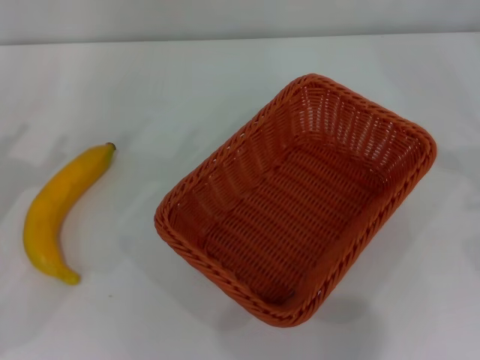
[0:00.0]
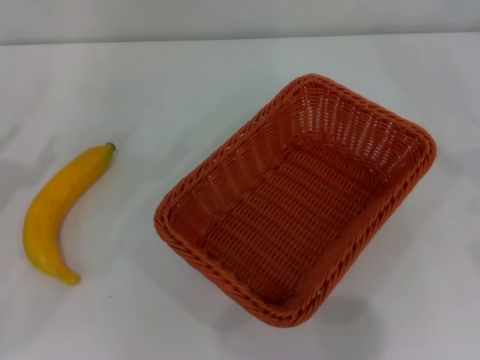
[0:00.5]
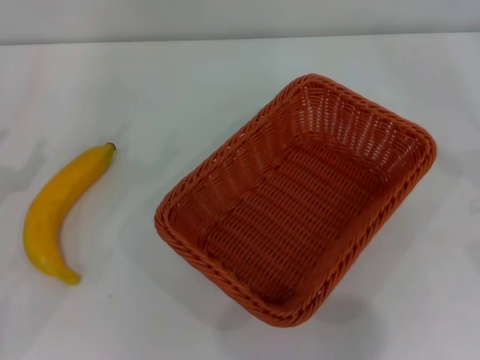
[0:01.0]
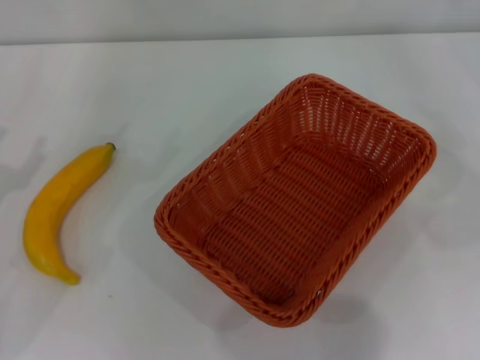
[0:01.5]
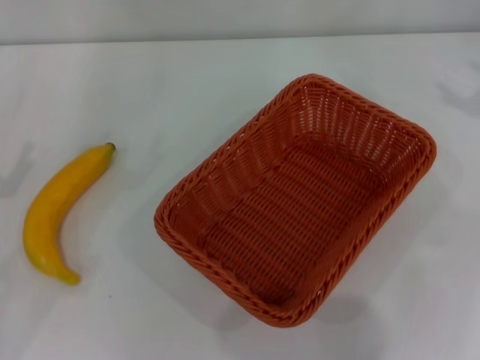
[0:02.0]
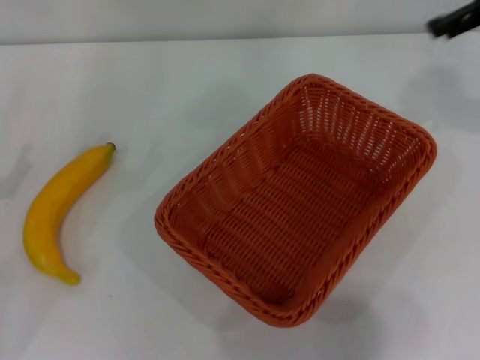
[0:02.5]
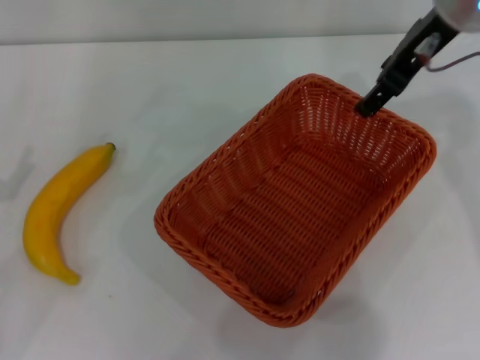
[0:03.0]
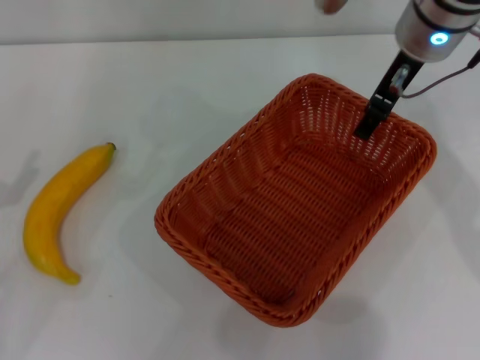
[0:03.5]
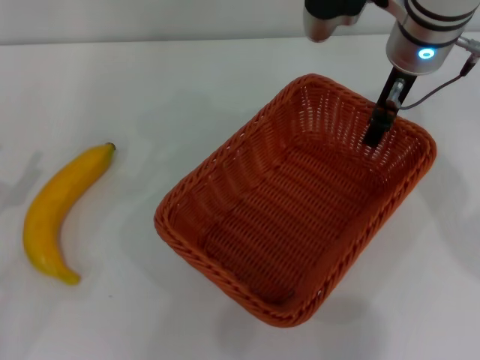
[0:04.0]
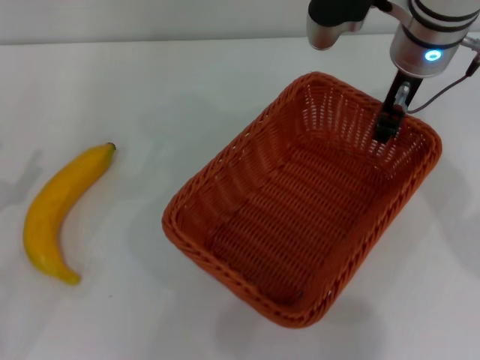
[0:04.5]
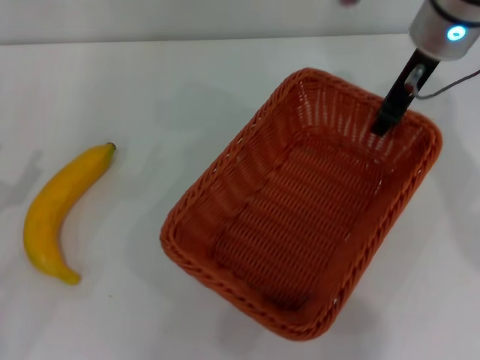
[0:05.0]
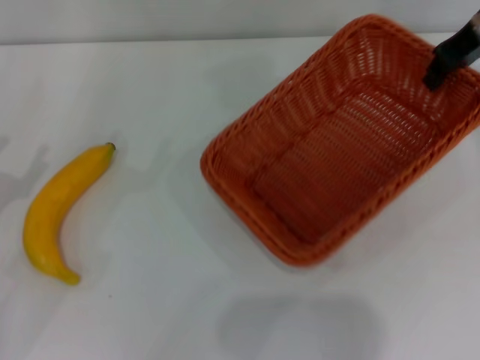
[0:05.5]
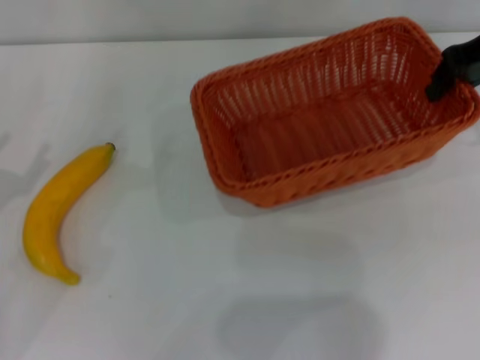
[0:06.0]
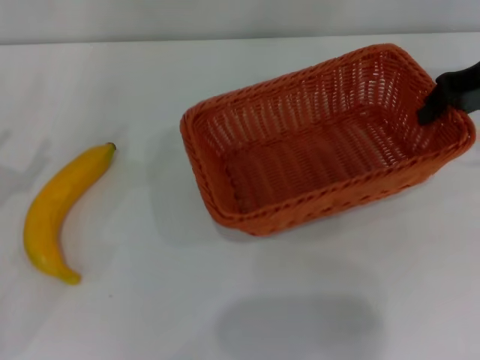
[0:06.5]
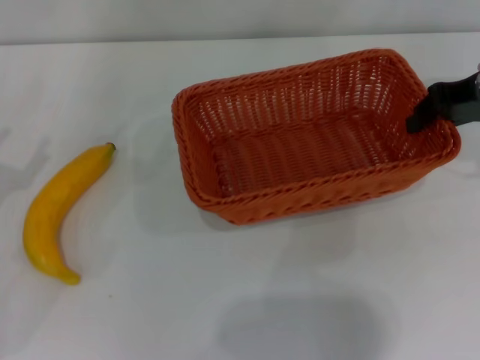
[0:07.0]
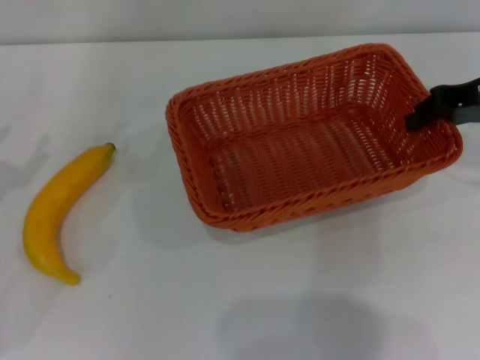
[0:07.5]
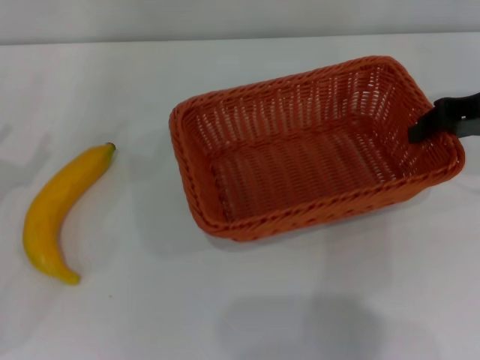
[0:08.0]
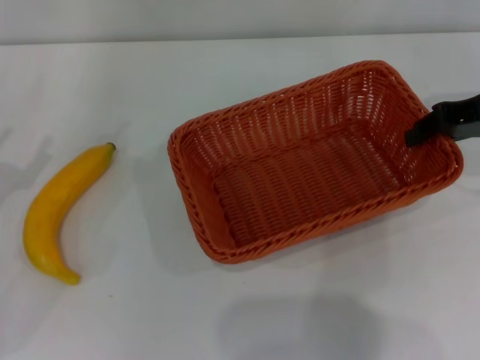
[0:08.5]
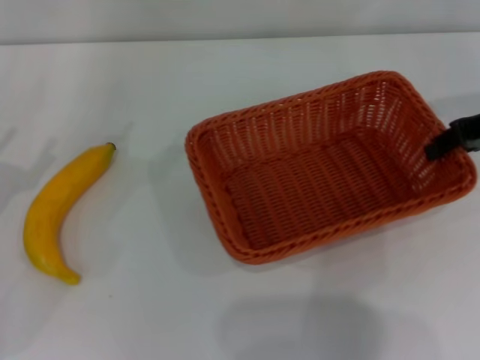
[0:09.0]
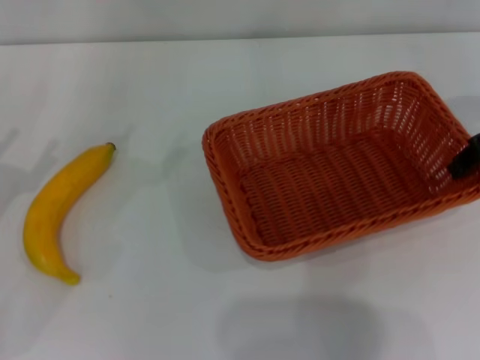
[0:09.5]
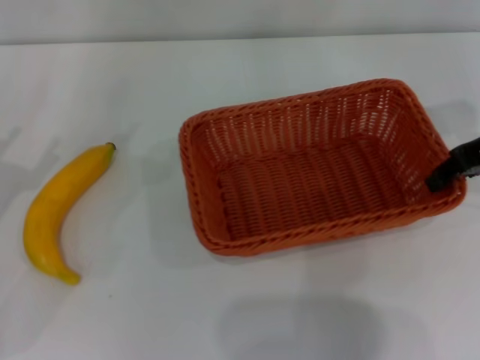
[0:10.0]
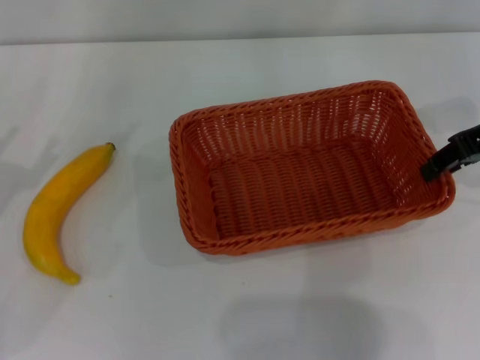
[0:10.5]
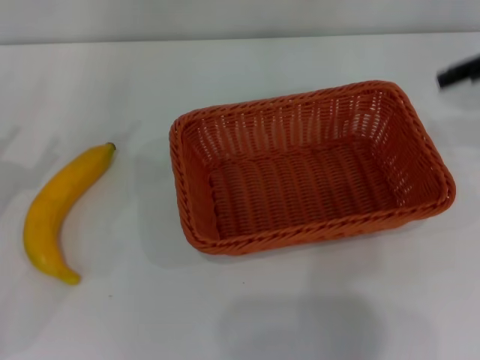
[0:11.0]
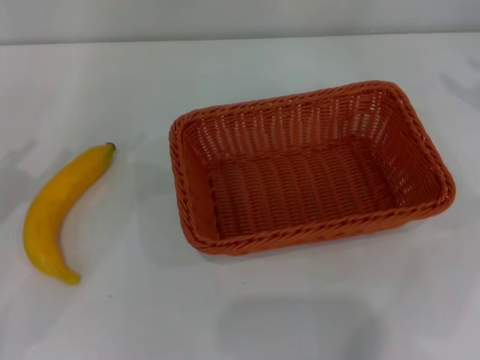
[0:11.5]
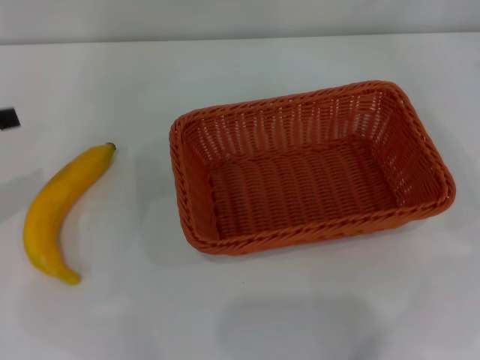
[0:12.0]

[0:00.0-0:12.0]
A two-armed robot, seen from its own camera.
Step, 0:00.0 to 0:05.0: Pick up the light basket with the right gripper.
Step, 0:05.5 to 0:10.5: Place the light basket in the center of view with the right gripper.
0:02.0 to 0:04.0: The right gripper is displaced to the left by about 25 cm.
0:04.0 to 0:06.0: The right gripper shifts approximately 15 cm to the right, and closes up.
0:06.0 to 0:08.0: The right gripper is displaced backward and downward by approximately 10 cm.
0:10.0 to 0:12.0: The left gripper heads upward, covering approximately 10 cm; the right gripper shifts roughly 15 cm to the right, and opens up.

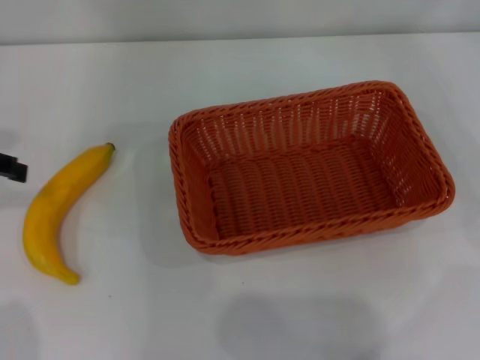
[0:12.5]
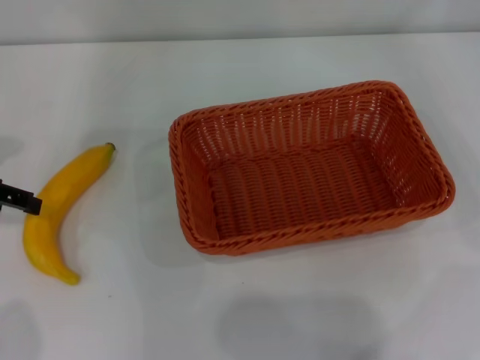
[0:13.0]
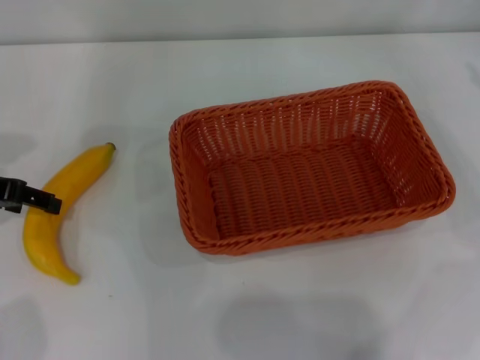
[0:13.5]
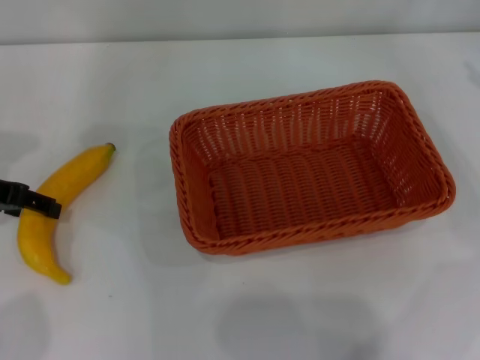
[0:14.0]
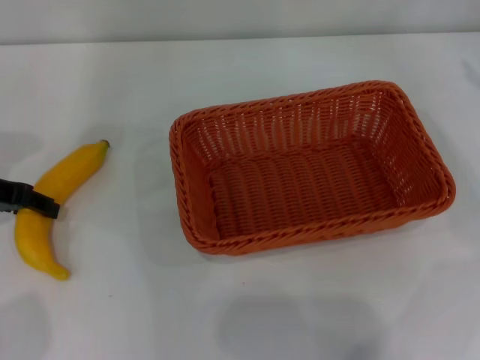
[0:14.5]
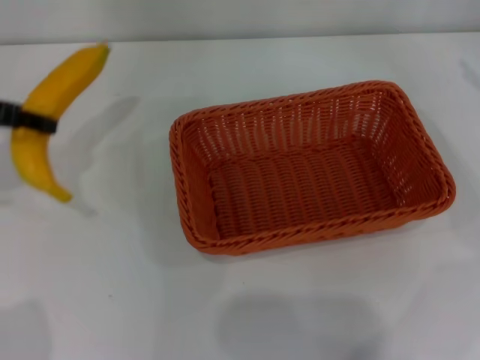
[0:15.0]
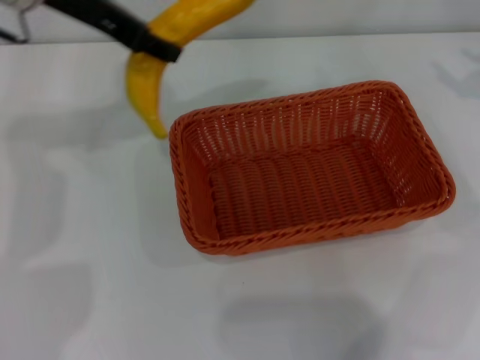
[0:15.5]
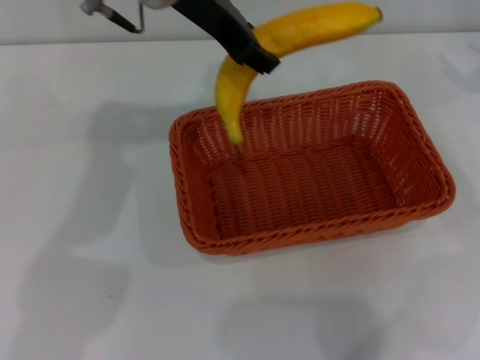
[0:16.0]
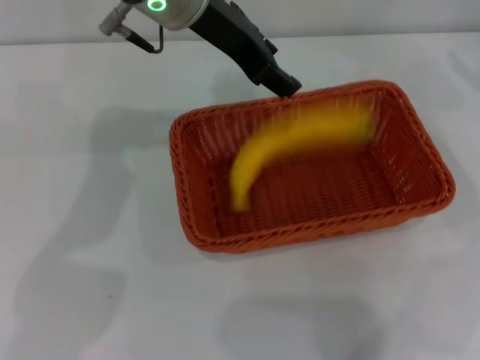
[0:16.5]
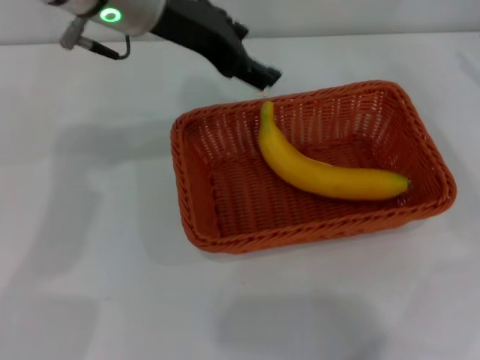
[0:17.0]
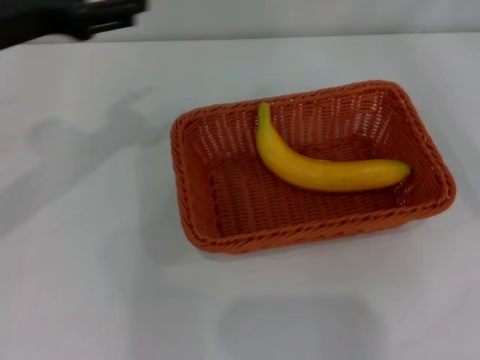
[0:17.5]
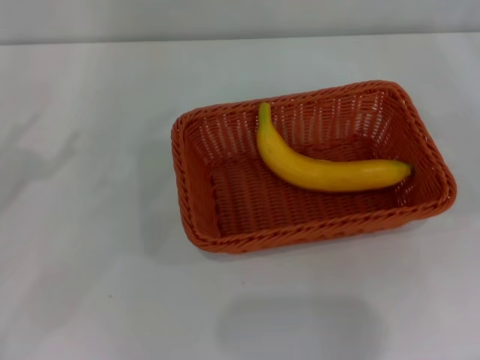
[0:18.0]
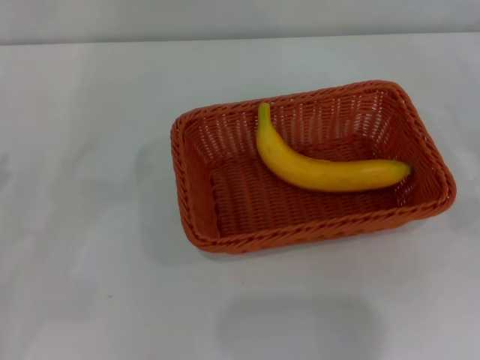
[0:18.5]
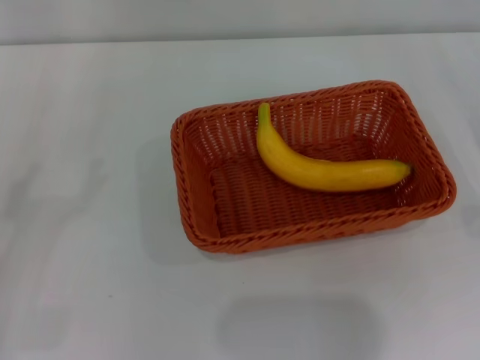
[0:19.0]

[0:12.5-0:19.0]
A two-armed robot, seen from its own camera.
Step, 0:15.0 to 0:16.5: Place the banana into the light basket with the left gripper.
0:12.5 to 0:14.5: The left gripper is displaced downward by roughly 10 cm.
0:14.5 to 0:17.0: The left gripper is displaced to the right and upward by some 25 cm, and closes and opens again.
0:17.0 to 0:19.0: The left gripper is displaced to the left, backward and downward by roughly 40 cm, while the right gripper travels downward and backward by roughly 15 cm.

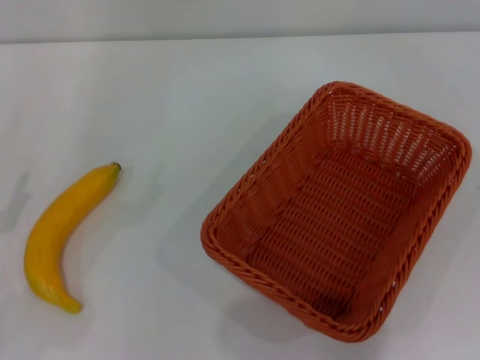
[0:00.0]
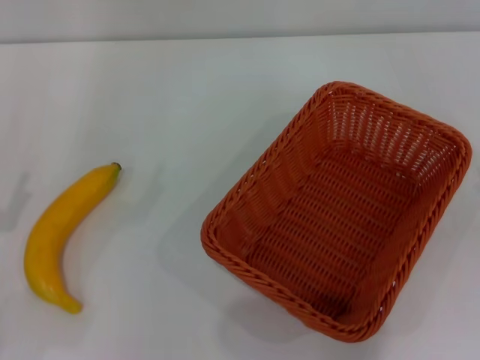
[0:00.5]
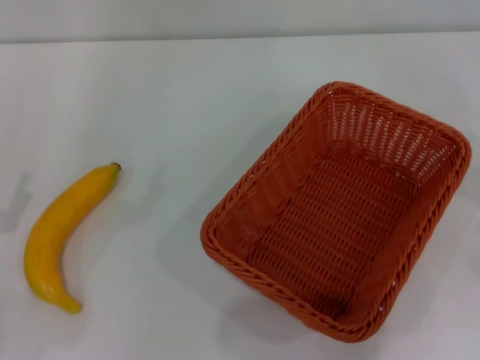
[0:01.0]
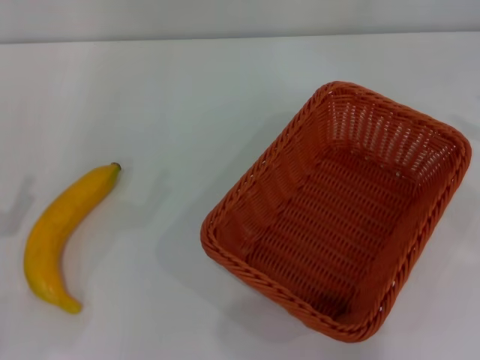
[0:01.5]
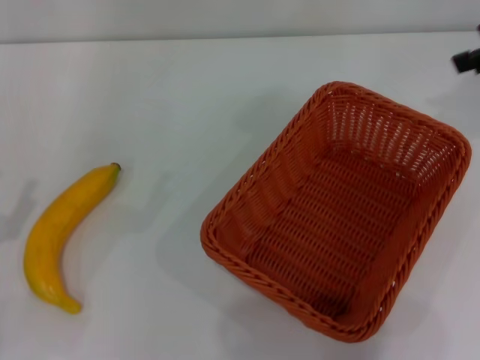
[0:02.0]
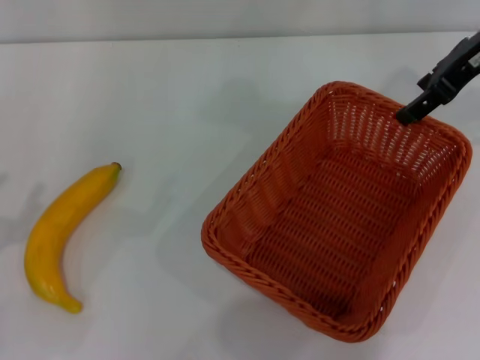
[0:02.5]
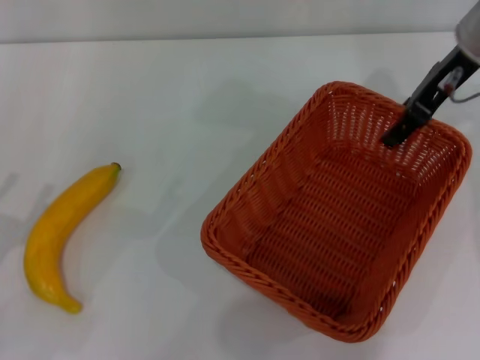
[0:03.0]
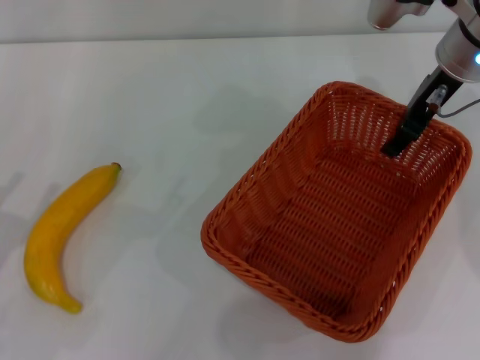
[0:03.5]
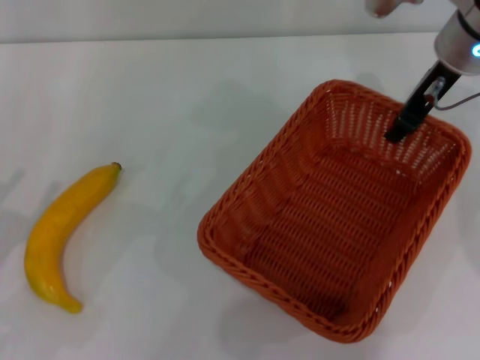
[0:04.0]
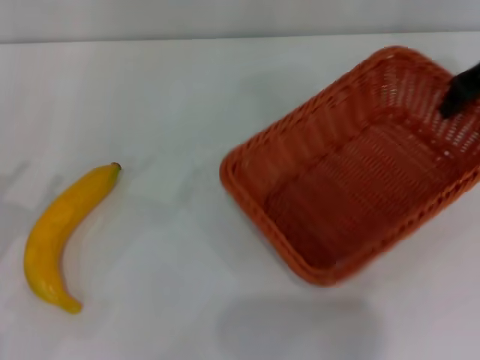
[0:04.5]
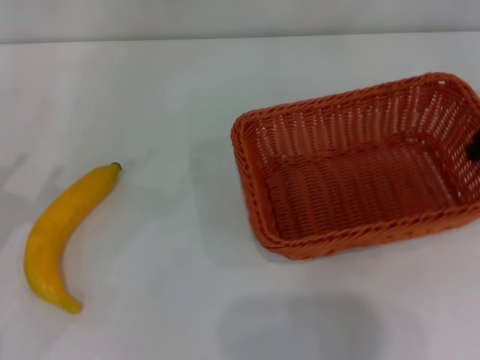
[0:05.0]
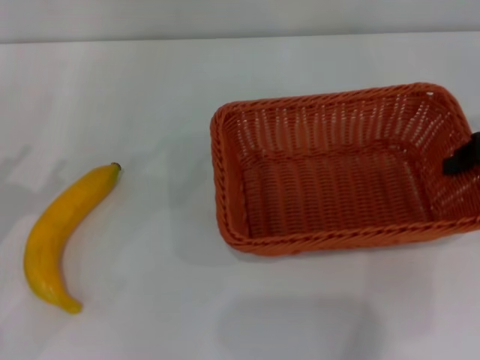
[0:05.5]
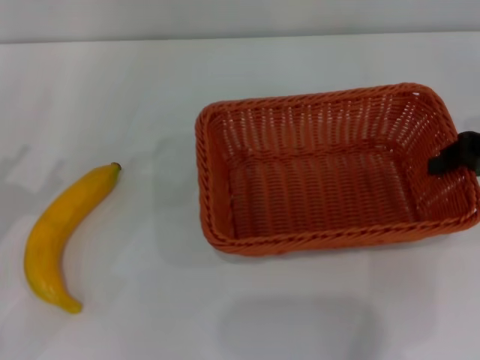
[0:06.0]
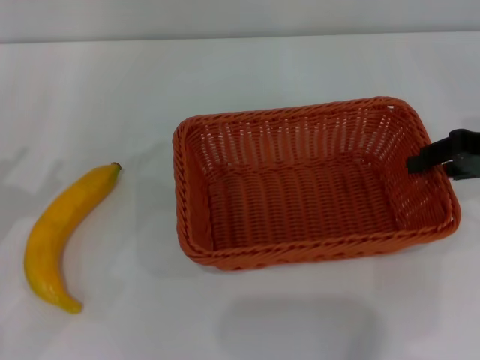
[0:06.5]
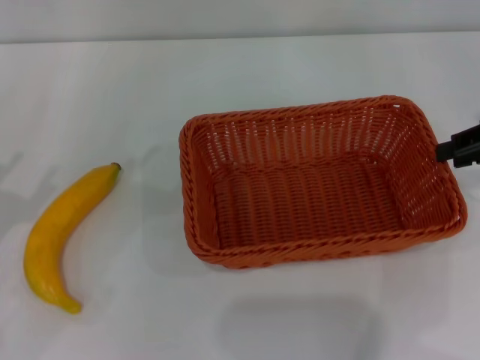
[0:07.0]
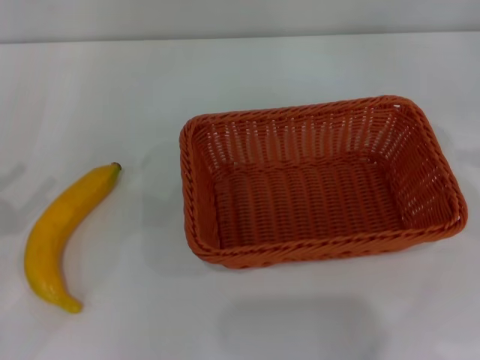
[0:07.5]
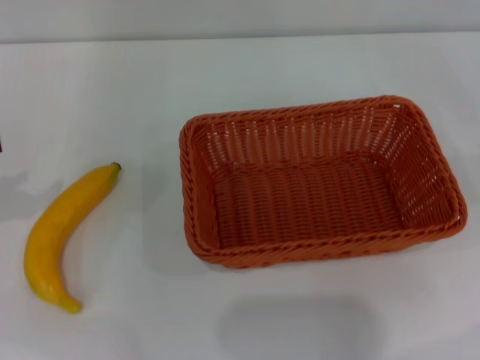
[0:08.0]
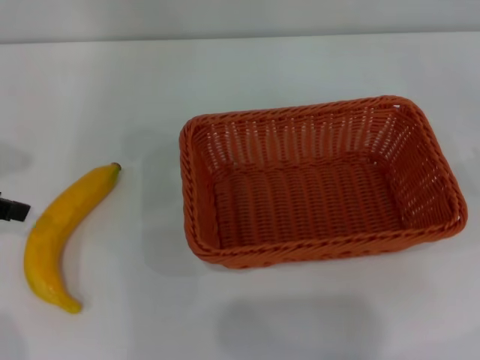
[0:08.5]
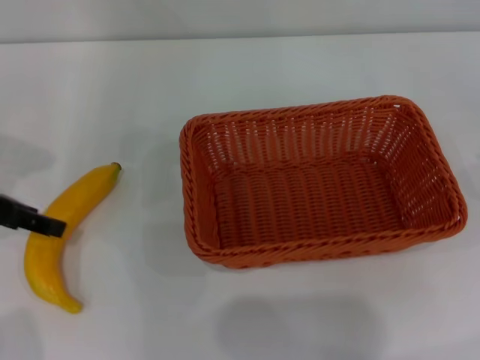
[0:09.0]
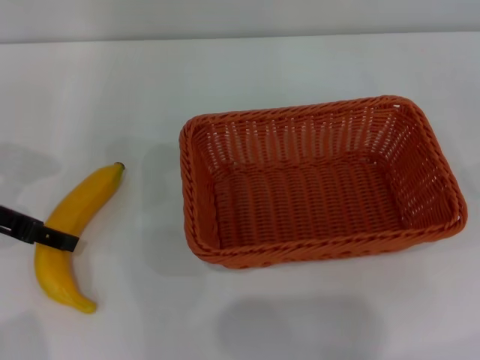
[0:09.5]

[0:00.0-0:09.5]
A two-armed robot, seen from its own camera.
Step, 0:00.0 to 0:04.0: Pick up the light basket with the right gripper.
Step, 0:04.5 to 0:07.0: Place the light basket in the center of view with the right gripper.
0:02.0 to 0:04.0: The right gripper moves to the left, downward and forward, about 15 cm, and closes.
0:04.0 to 0:05.5: The right gripper heads to the right and backward, covering about 15 cm, and closes up.
0:05.5 to 0:07.5: The right gripper shifts about 10 cm to the right; the left gripper shifts by roughly 5 cm.
0:07.5 to 0:09.5: The left gripper goes about 15 cm forward and to the right.
